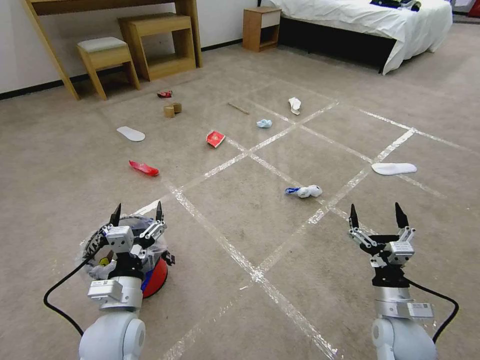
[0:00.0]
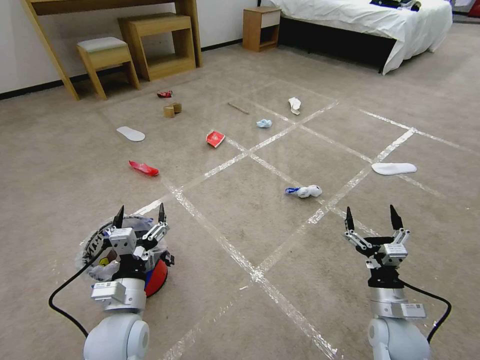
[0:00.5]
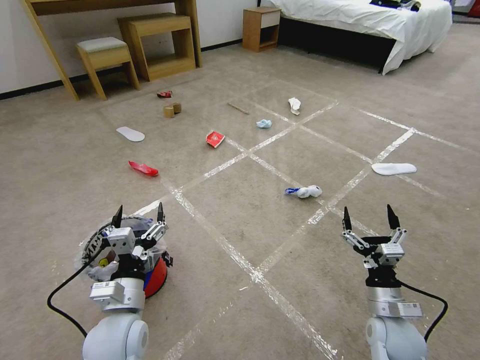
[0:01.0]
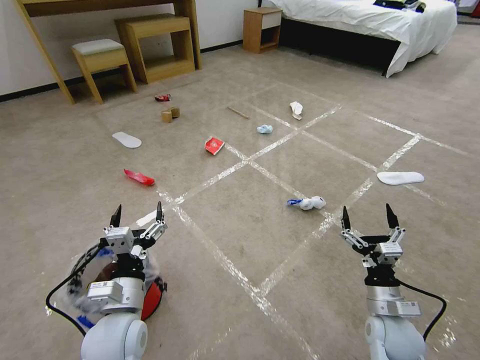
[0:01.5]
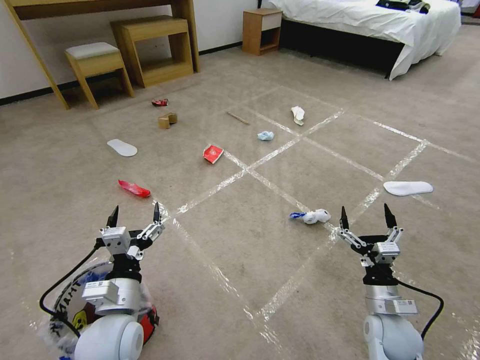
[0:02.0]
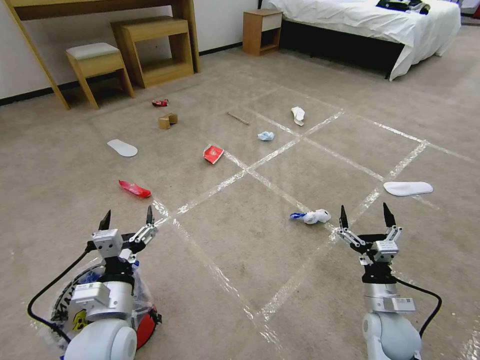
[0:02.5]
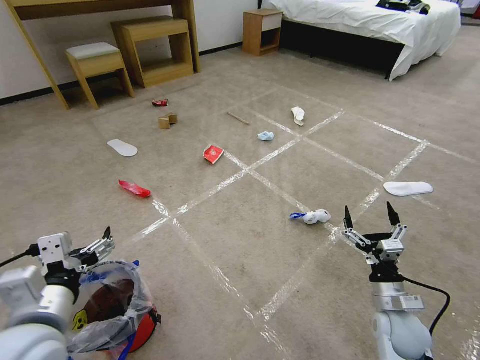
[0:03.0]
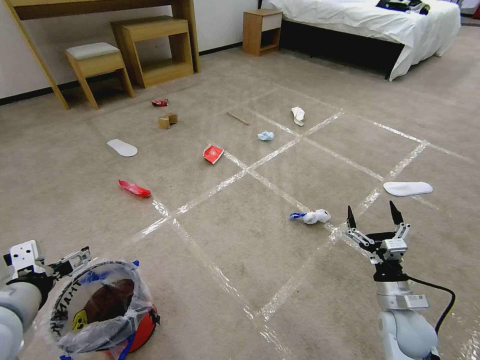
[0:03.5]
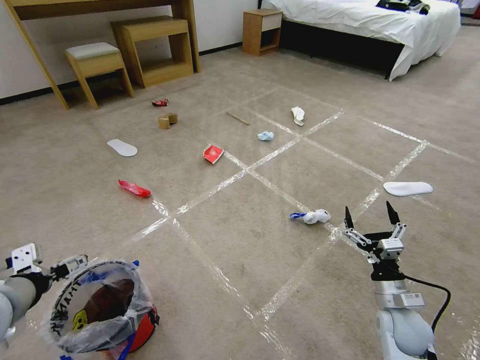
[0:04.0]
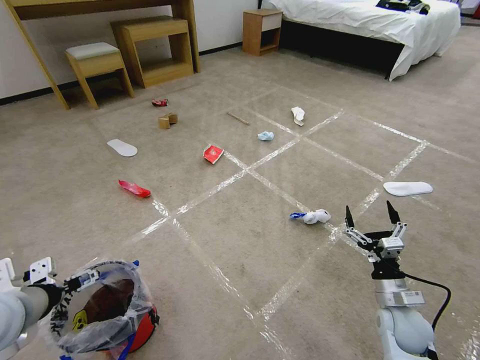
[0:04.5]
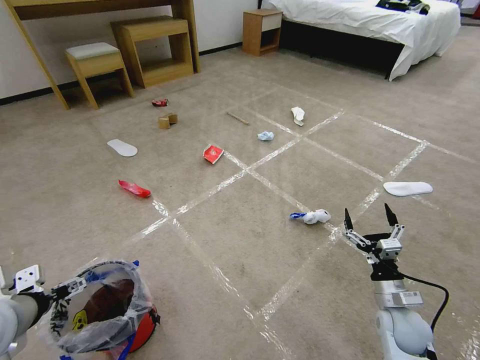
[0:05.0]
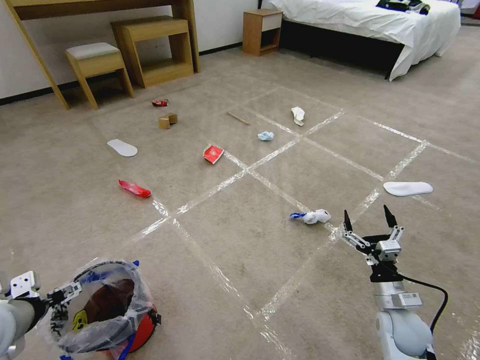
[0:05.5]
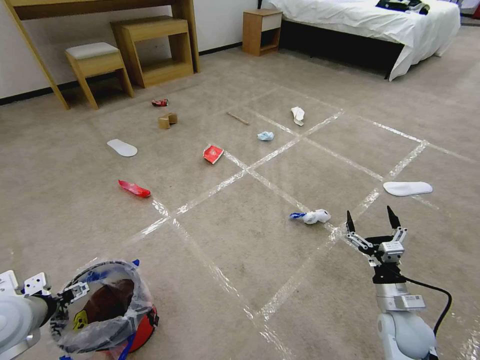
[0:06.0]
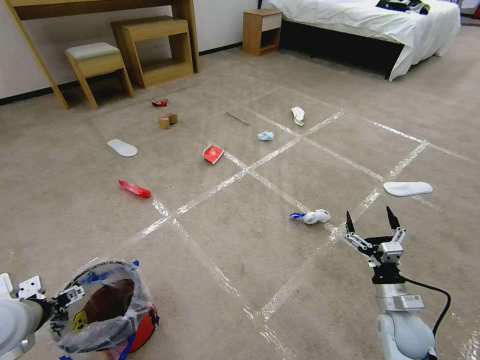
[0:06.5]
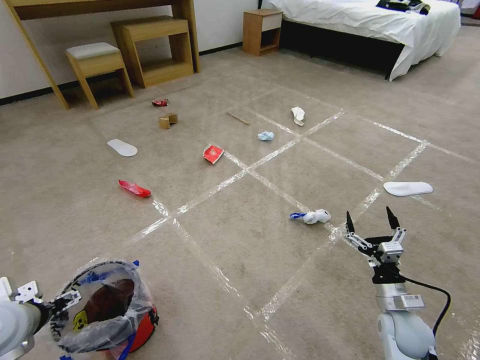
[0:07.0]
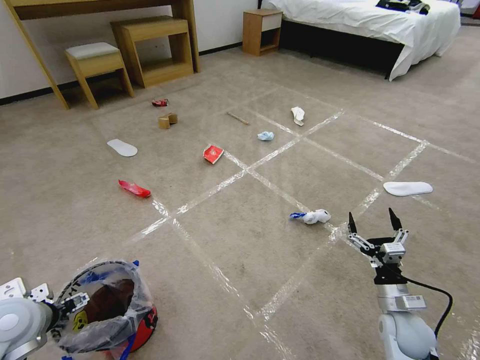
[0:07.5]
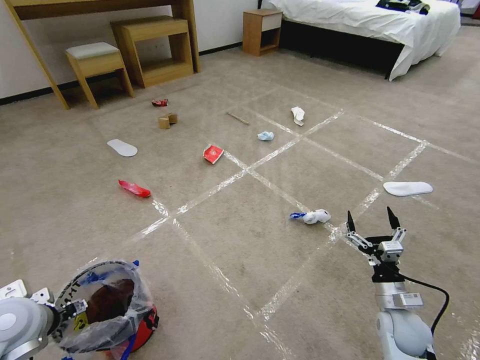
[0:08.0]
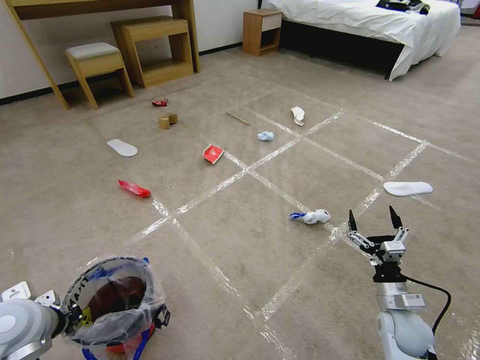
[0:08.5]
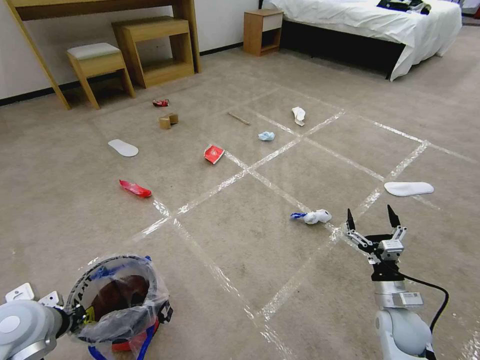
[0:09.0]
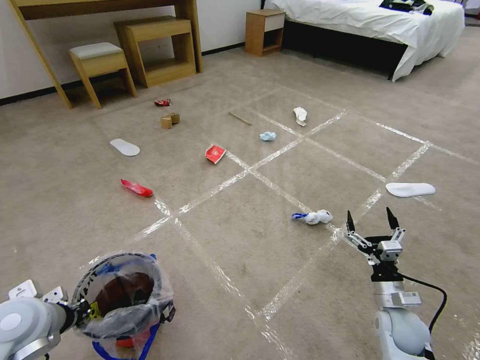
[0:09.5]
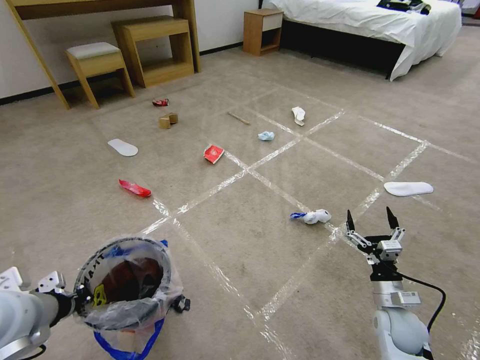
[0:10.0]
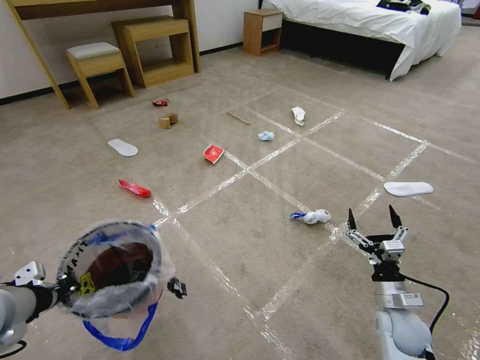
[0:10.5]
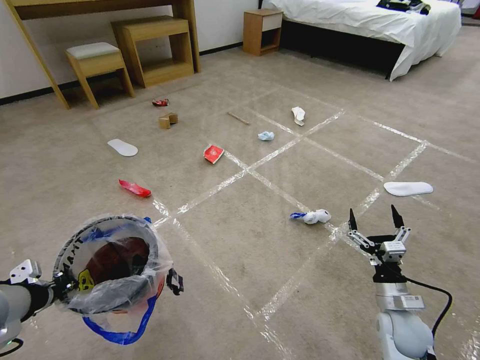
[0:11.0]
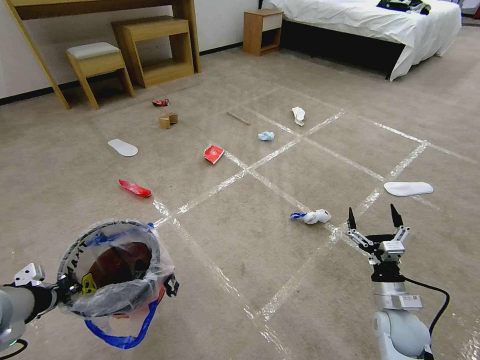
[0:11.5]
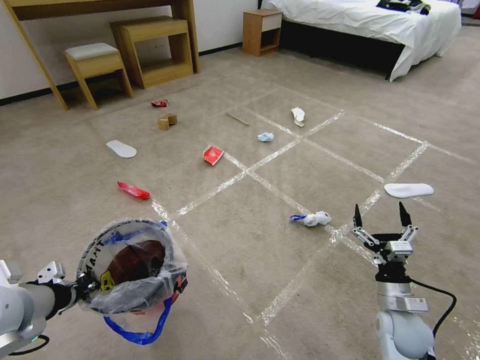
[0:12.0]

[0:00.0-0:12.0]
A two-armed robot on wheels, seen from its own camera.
Task of the whole recording: Pick up the trash bin and place the garbage on the floor into it.
0:02.0 to 0:04.0: The left gripper heads to the left and upward, covering roughly 20 cm.
0:04.0 to 0:06.0: The left gripper is displaced downward by some 5 cm.
0:06.0 to 0:08.0: The grippers move only a little.
0:08.0 to 0:10.0: The left gripper heads upward, covering approximately 5 cm, and closes its fingers.

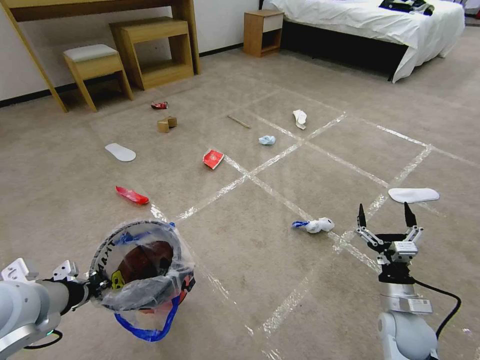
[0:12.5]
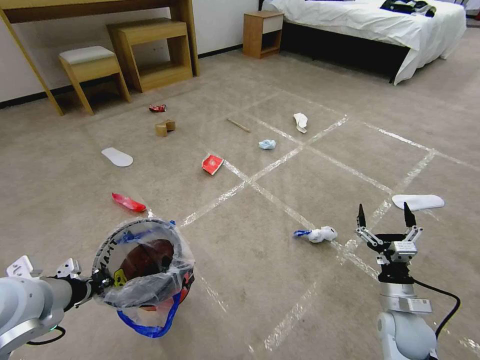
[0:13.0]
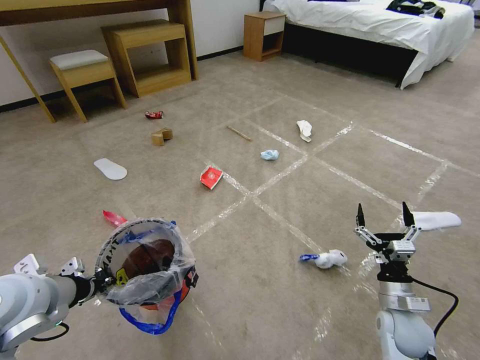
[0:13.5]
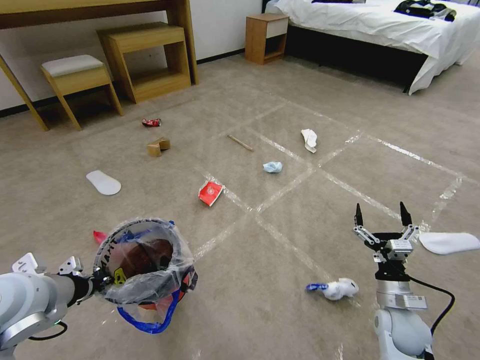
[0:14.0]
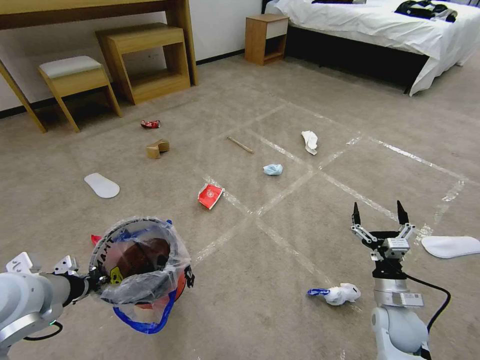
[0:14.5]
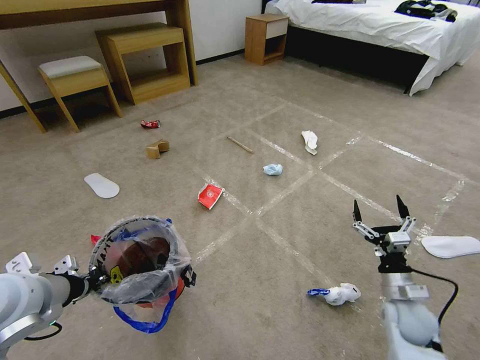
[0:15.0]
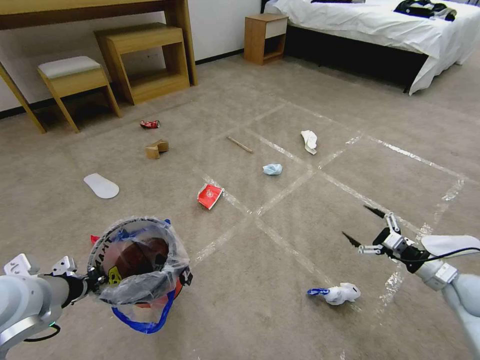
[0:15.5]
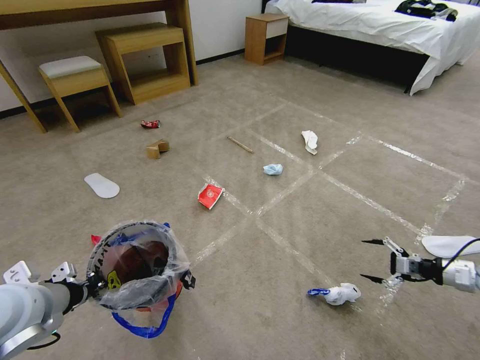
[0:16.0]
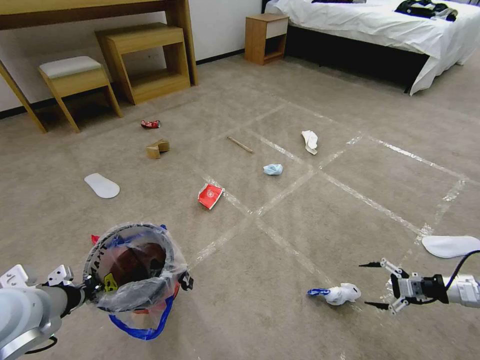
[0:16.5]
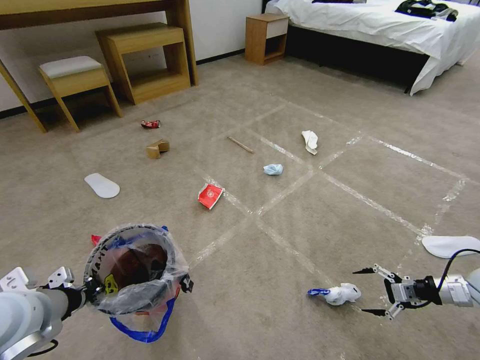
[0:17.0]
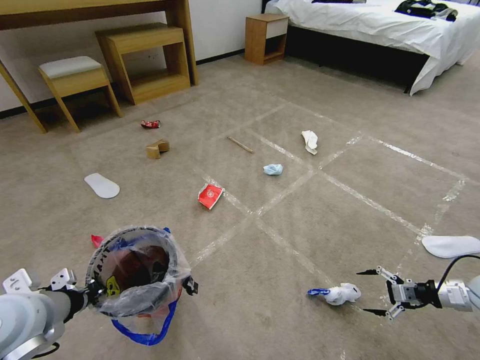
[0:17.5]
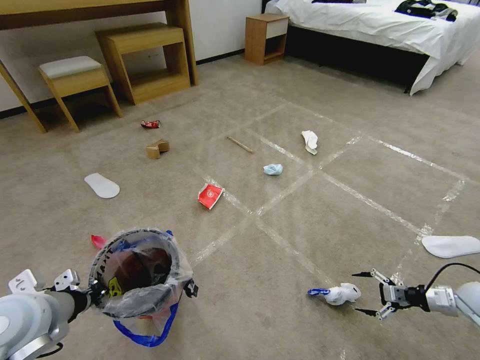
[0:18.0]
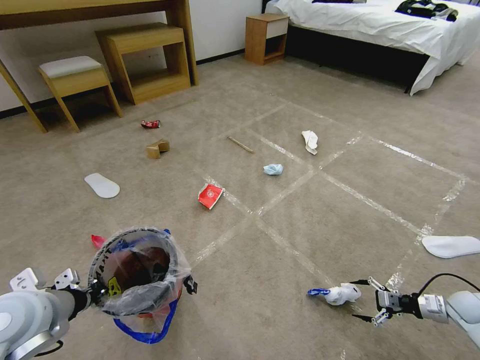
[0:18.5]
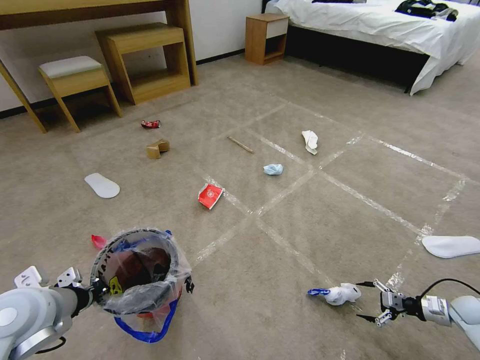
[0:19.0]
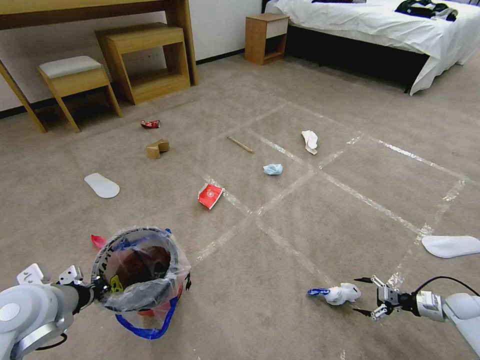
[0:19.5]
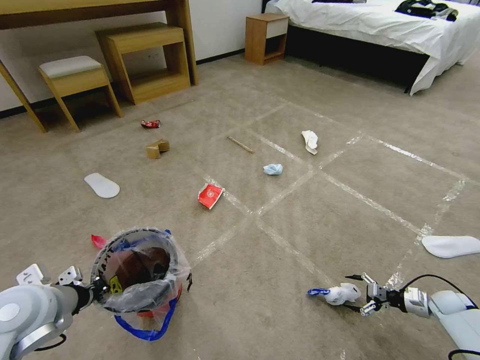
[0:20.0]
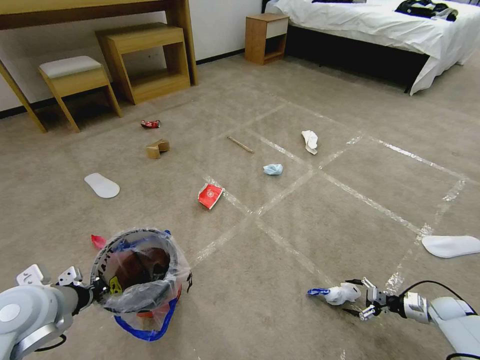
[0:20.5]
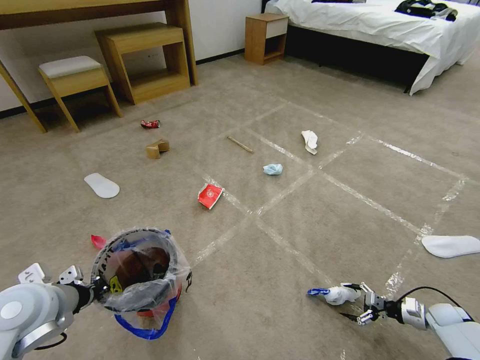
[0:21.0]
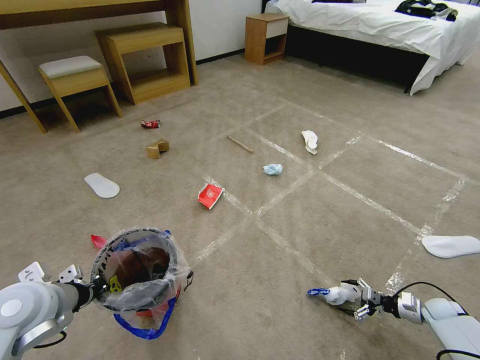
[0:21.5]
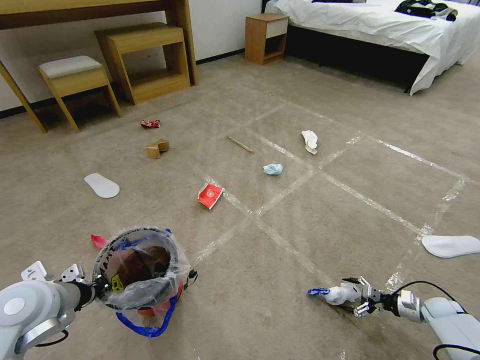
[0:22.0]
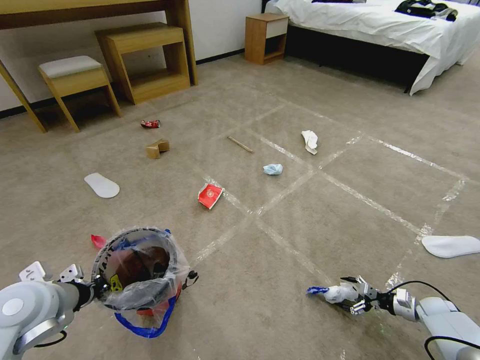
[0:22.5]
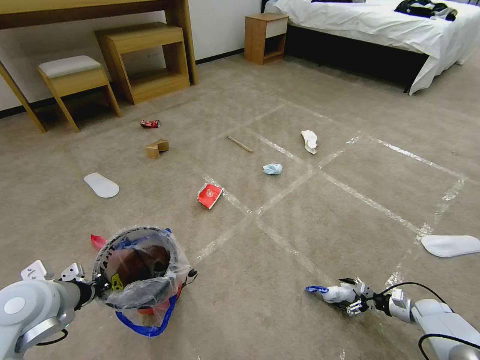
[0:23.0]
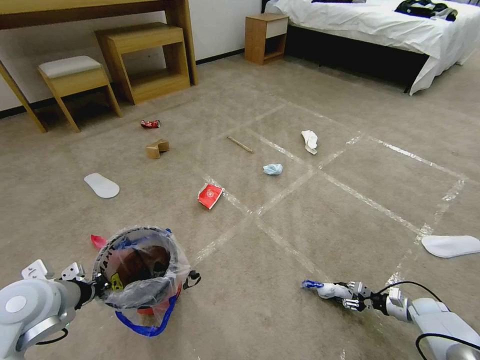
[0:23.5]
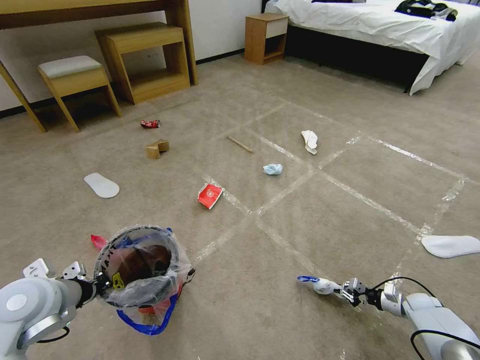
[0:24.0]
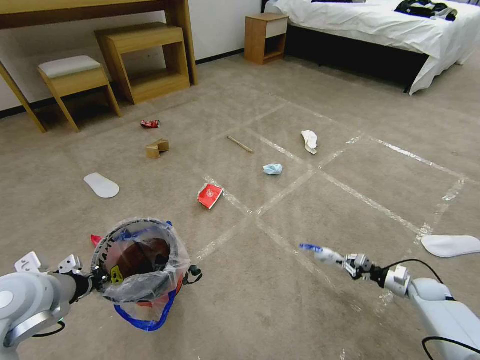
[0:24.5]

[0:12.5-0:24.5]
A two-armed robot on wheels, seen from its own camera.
Task of the whole recording: Pick up the trash bin and place the garbage on the floor into it.
0:14.5 to 0:16.5: The right gripper shifts roughly 25 cm to the right.
0:16.5 to 0:18.5: The right gripper is displaced downward by some 10 cm.
0:18.5 to 0:20.5: The right gripper goes about 5 cm downward.
0:20.5 to 0:22.5: There are only small adjustments of the grippers.
0:22.5 to 0:24.5: The right gripper is displaced upward by about 5 cm, and closes.

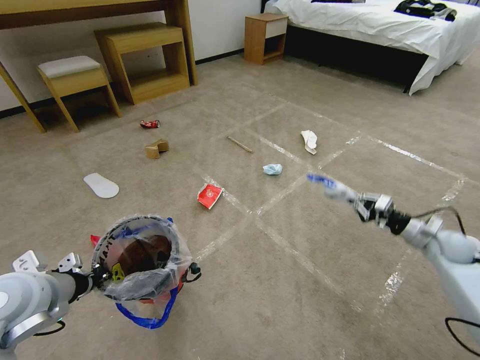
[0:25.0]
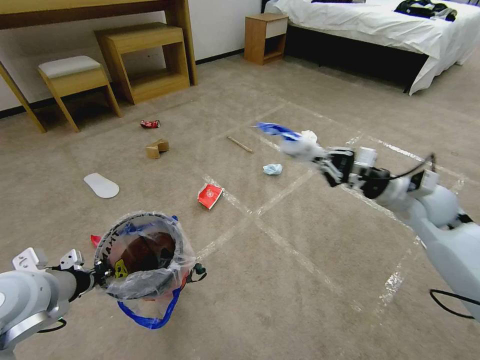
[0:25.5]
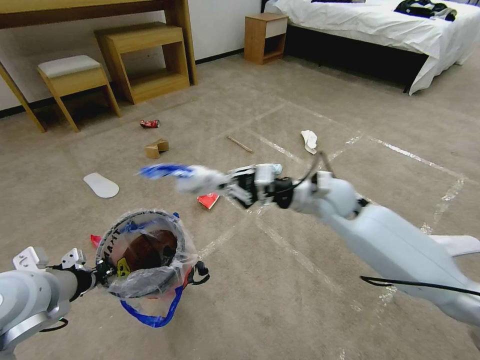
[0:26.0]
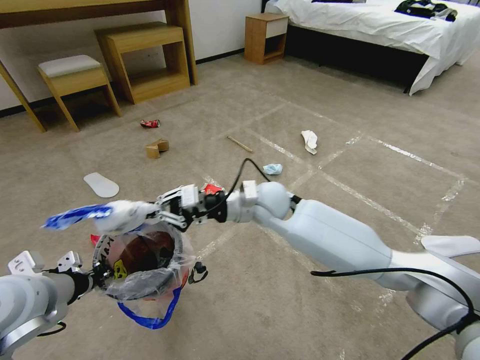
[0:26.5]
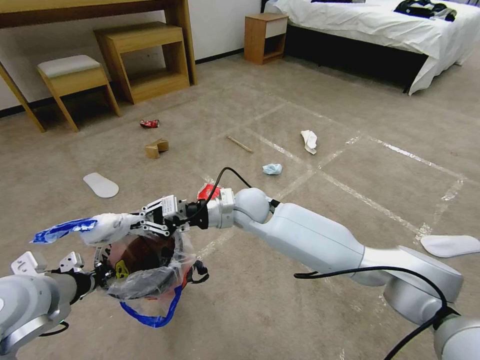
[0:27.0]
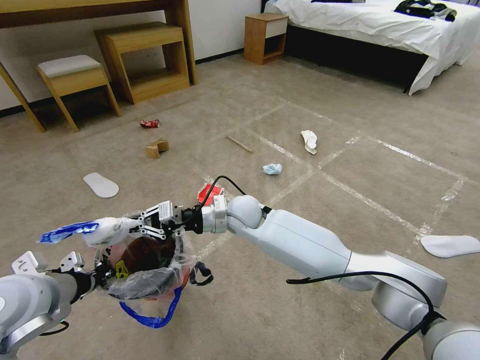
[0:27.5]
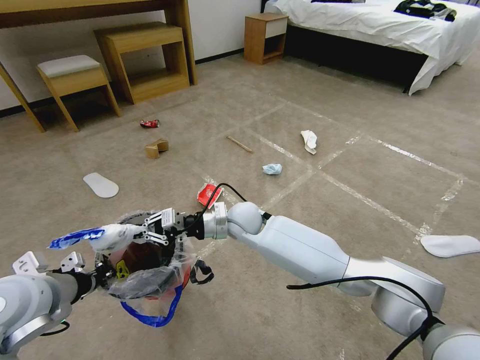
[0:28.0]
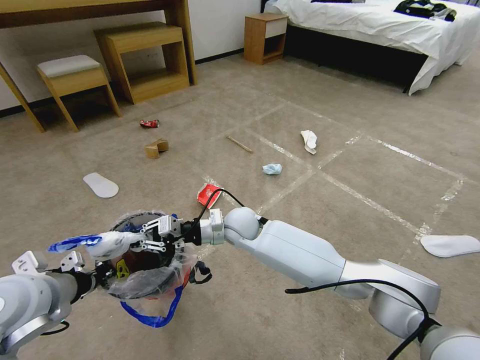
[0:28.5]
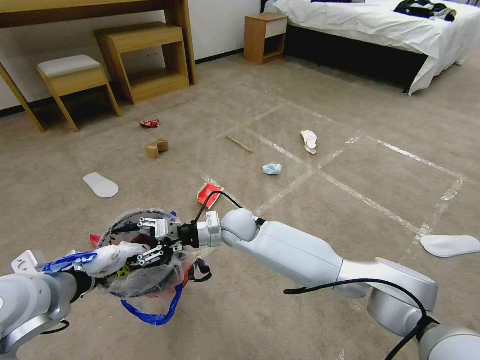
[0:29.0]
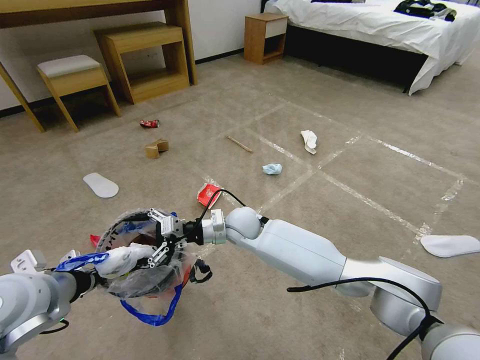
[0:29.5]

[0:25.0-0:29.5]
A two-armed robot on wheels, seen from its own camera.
Task of the whole recording: Pick up the trash bin and place the garbage on the floor into it.
0:25.0 to 0:27.0: The right gripper shifts approximately 50 cm to the left.
0:27.0 to 0:29.5: The right gripper shifts some 5 cm downward, and opens.
